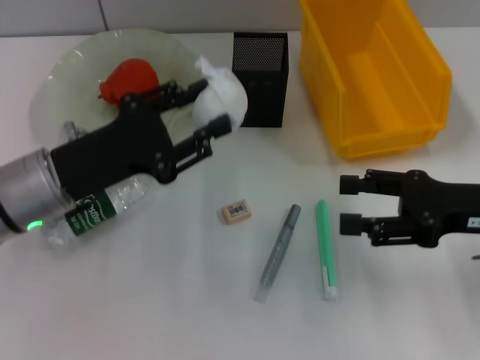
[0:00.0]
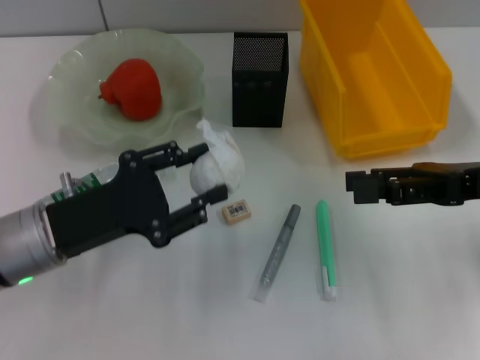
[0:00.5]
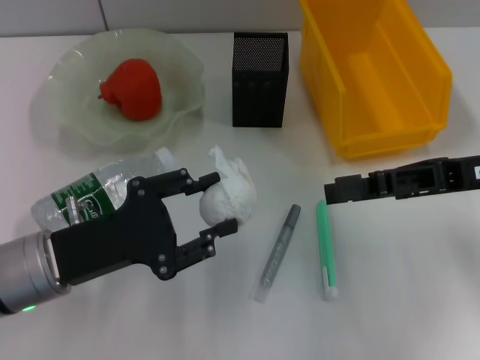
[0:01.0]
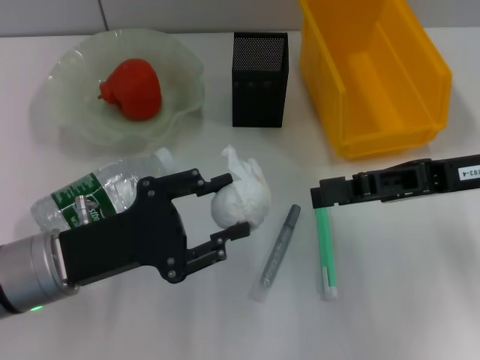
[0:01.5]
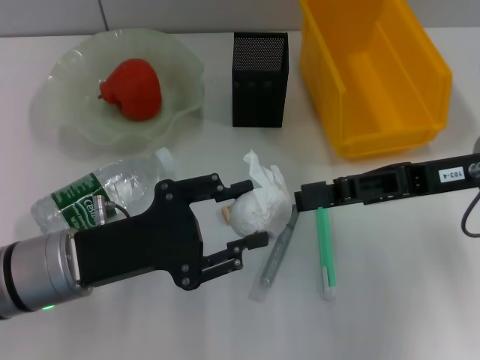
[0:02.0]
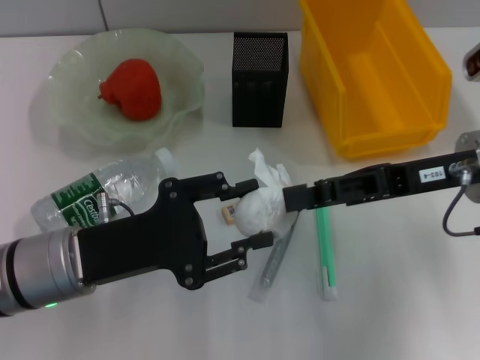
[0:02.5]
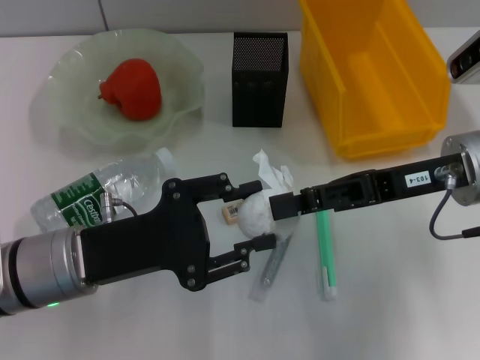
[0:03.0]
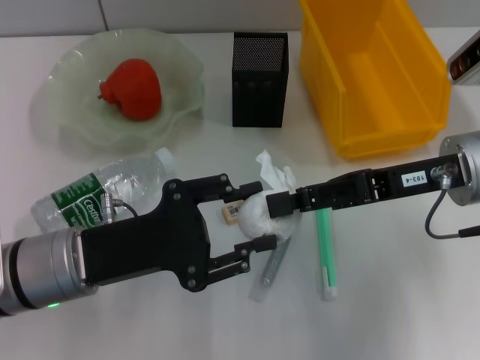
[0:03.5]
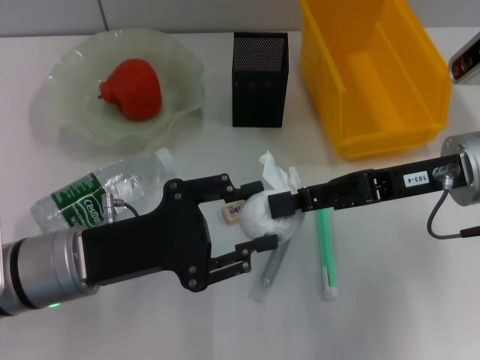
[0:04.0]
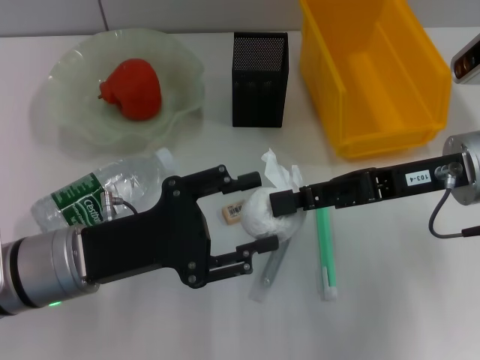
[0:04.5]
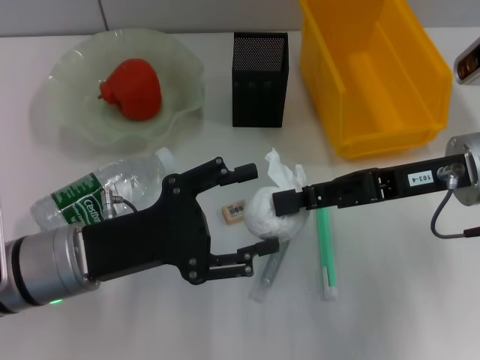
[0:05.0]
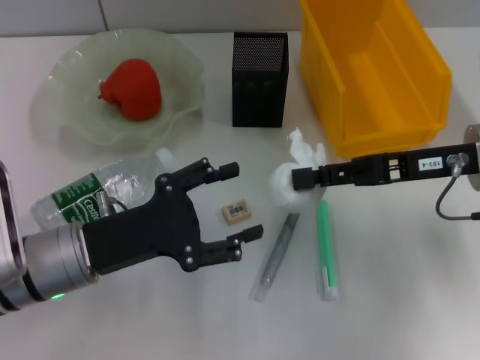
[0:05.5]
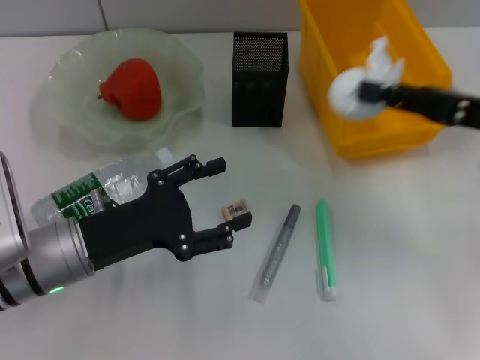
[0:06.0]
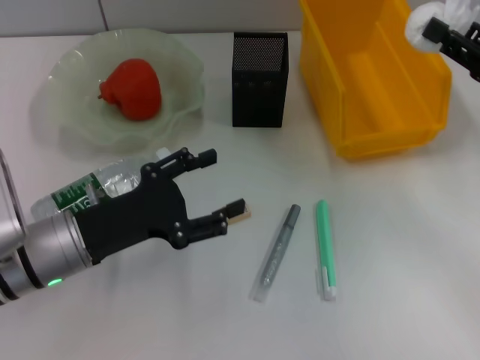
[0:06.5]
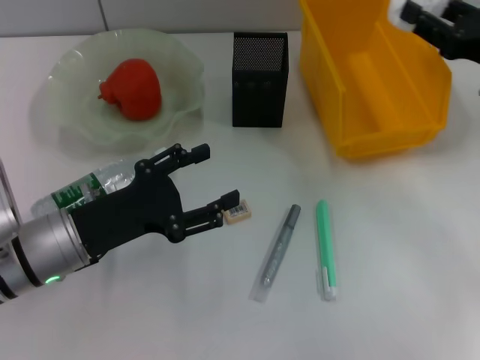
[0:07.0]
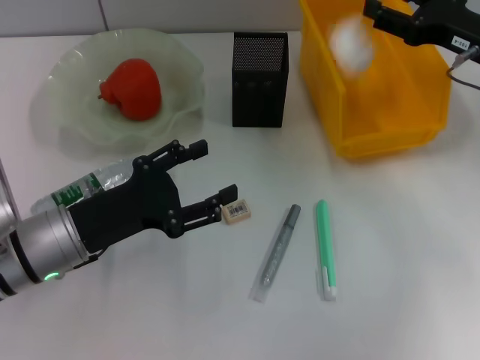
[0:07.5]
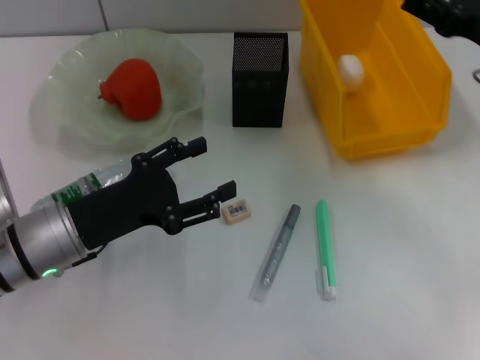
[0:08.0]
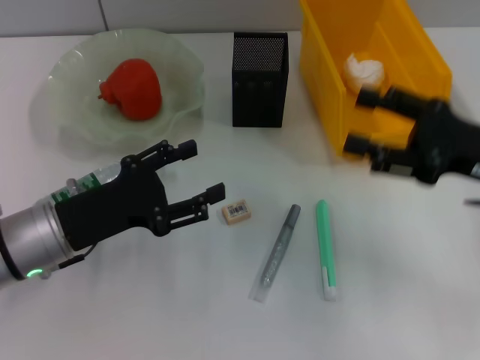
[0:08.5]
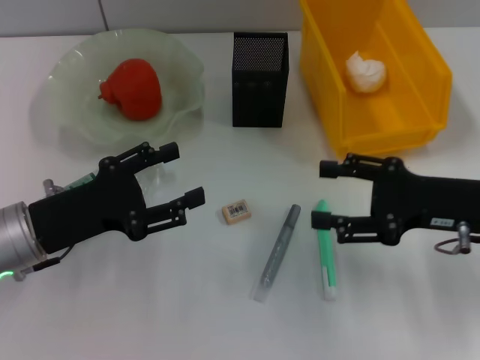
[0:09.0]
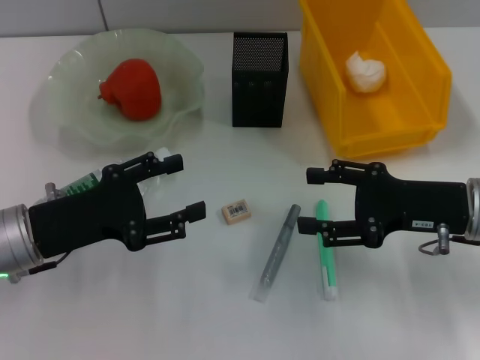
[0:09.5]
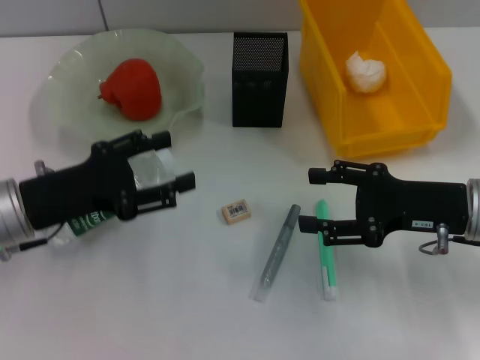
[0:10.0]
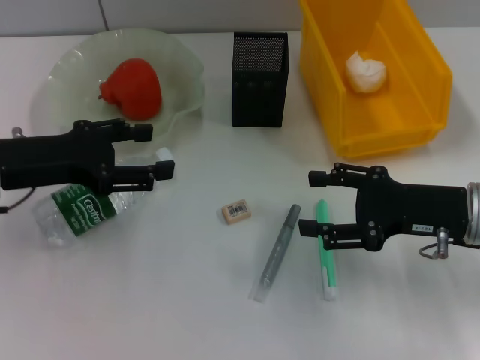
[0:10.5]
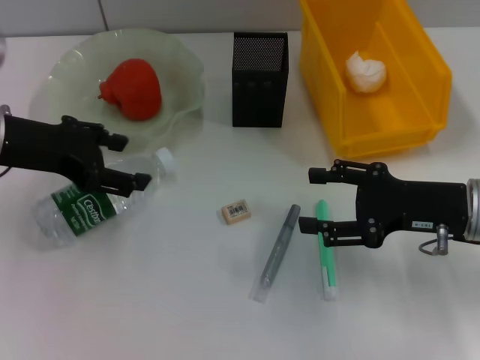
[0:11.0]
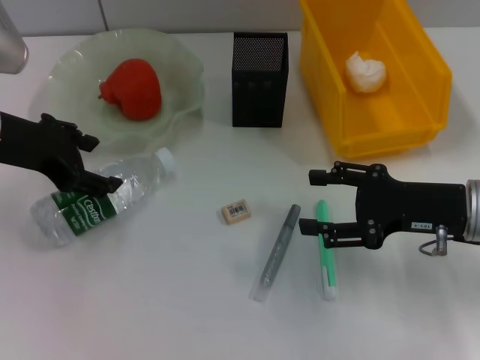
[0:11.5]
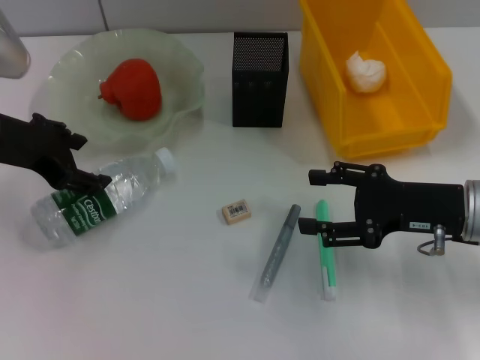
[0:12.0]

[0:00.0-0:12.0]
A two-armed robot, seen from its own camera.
Step, 0:00.0 to 0:04.5: Pass the paper ball from the left hand to the right hand.
Step, 0:05.0 to 0:08.5: Place the paper ball into the trash can with the right hand.
0:00.0 to 0:02.0: The left gripper moves backward, about 5 cm. The right gripper shifts by roughly 5 cm.
0:02.0 to 0:04.0: The right gripper closes.
0:04.0 to 0:06.0: The right gripper heads to the right, covering about 10 cm; the left gripper opens.
0:06.0 to 0:08.0: The right gripper opens up.
0:08.0 to 0:10.0: The right gripper is displaced backward and downward by about 10 cm.
0:10.0 to 0:12.0: The left gripper travels upward and forward by some 10 cm.

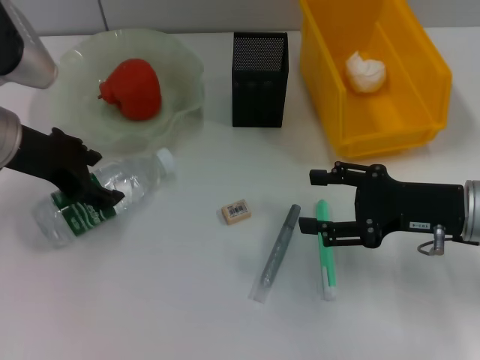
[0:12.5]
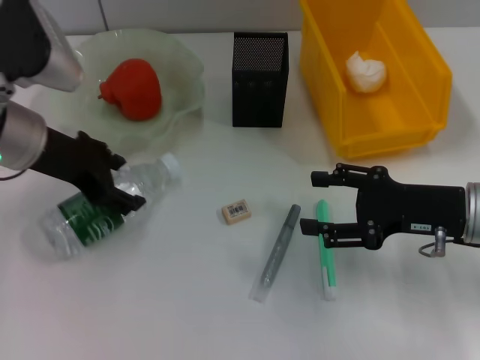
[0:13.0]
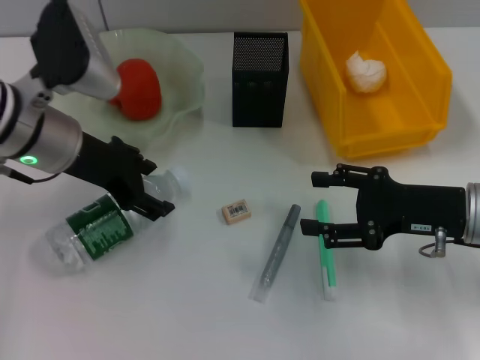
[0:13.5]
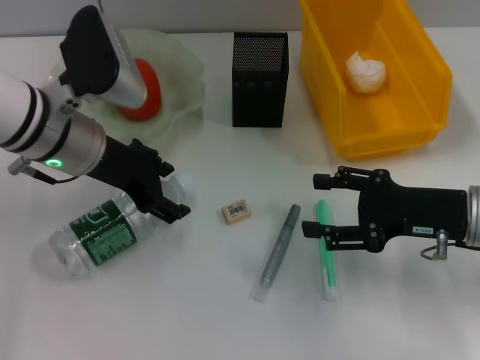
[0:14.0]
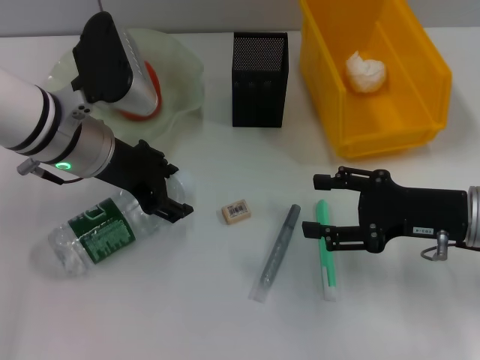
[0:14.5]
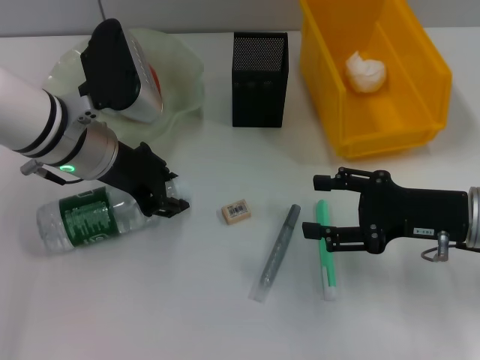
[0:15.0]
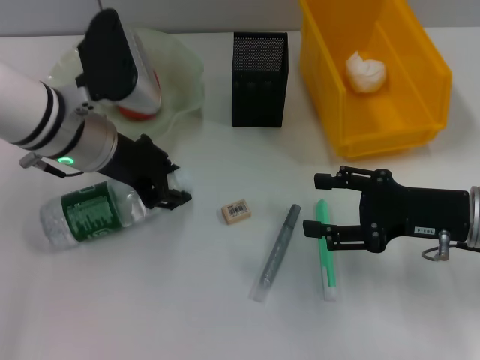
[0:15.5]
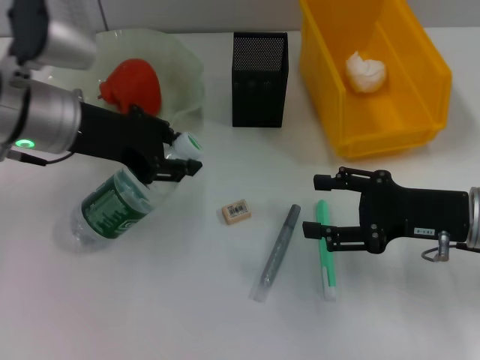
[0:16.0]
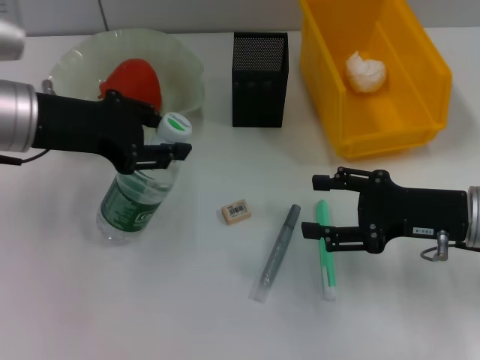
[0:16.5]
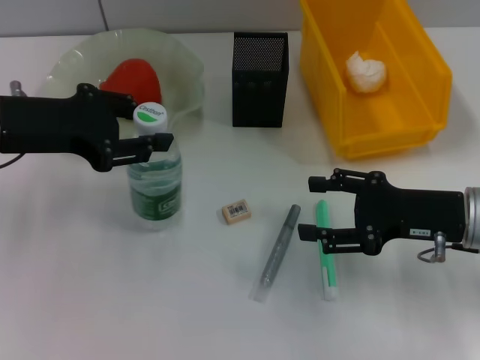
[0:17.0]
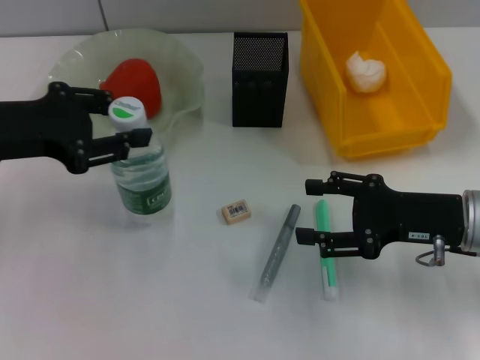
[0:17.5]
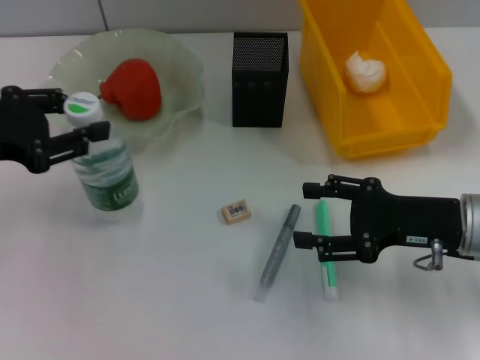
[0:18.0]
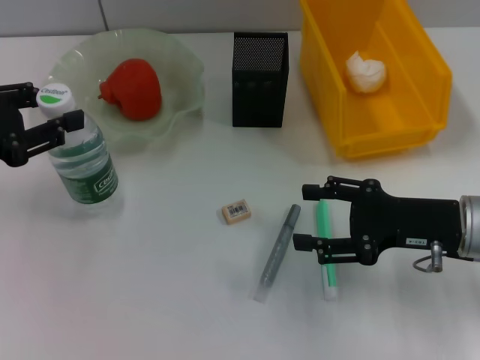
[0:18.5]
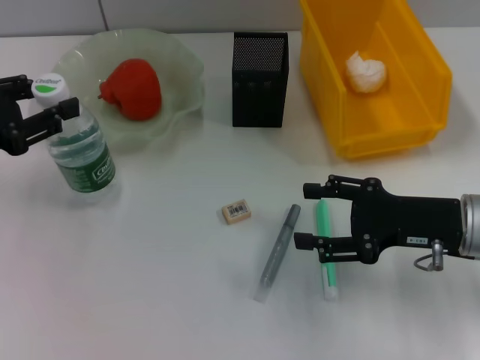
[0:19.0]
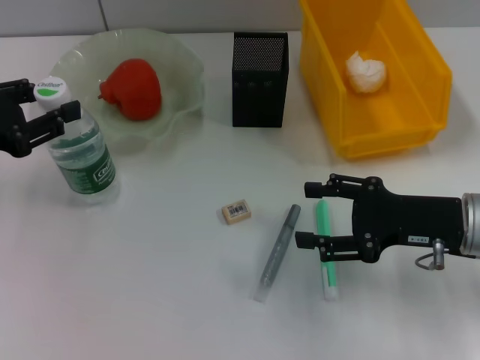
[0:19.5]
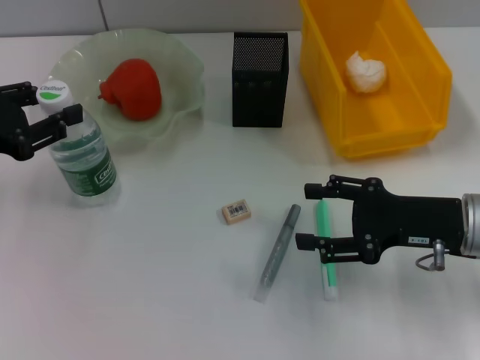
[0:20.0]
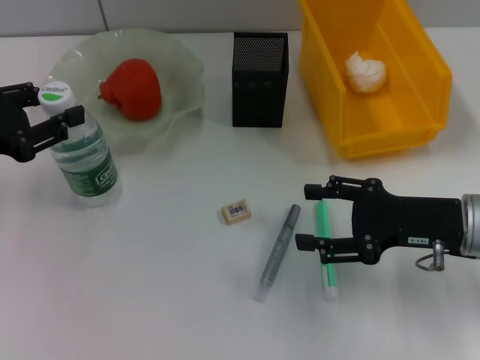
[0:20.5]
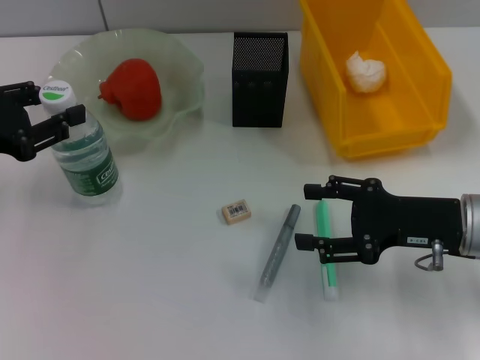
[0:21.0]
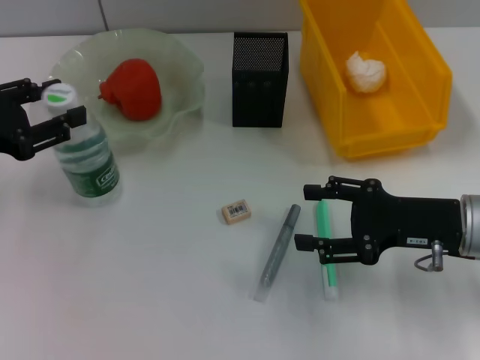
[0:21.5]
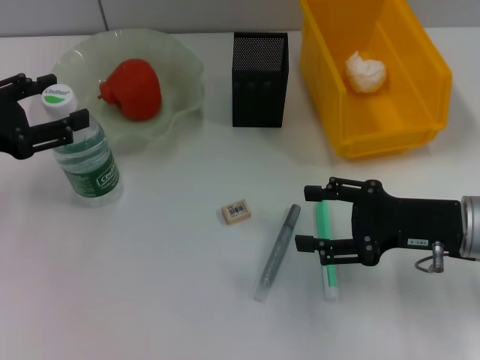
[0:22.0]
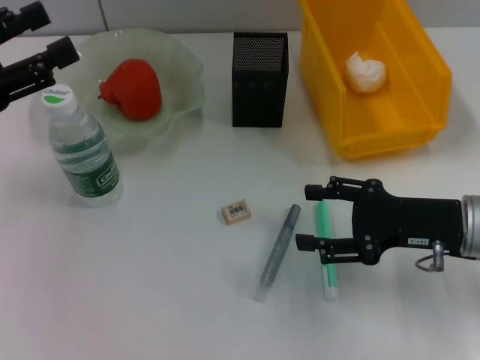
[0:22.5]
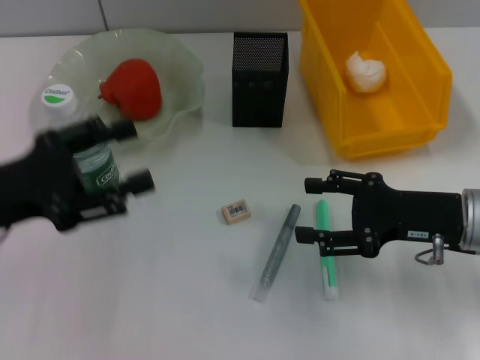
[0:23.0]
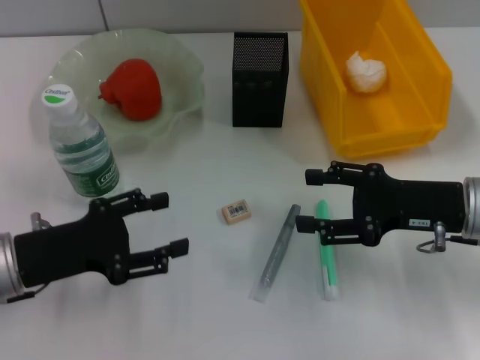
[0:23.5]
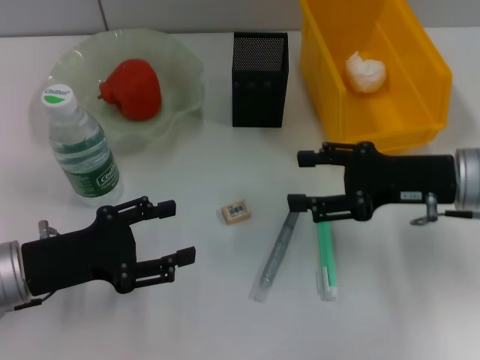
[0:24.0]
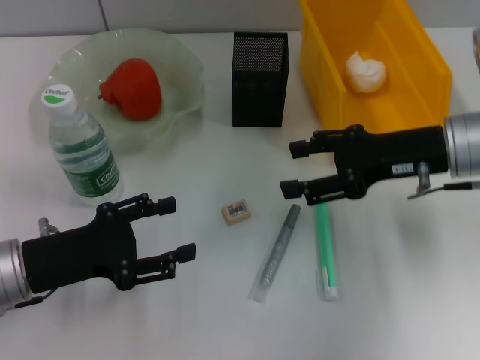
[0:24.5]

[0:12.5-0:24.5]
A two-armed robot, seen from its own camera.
Step, 0:12.5 to 0:15.0: Grab the water bottle with the left hand.
Step, 0:15.5 to 0:21.5: Place the water bottle on the table with the left hand.
0:12.5 to 0:14.5: The left gripper shifts roughly 5 cm to the right.
0:14.5 to 0:16.5: The left gripper moves to the left, approximately 5 cm, and closes its fingers.
0:16.5 to 0:18.5: The left gripper moves to the left, roughly 10 cm.
0:18.5 to 0:20.5: The grippers make only small movements.
0:20.5 to 0:22.5: The left gripper opens its fingers.
0:22.5 to 0:24.5: The left gripper moves downward and to the right, some 15 cm. The right gripper moves forward and upward, some 10 cm.

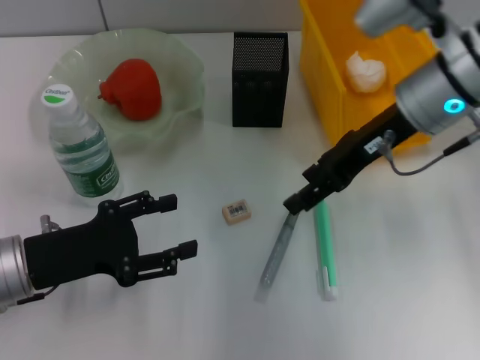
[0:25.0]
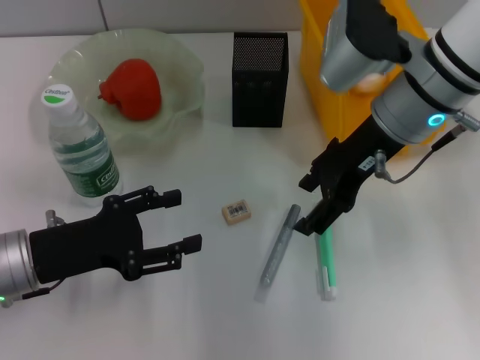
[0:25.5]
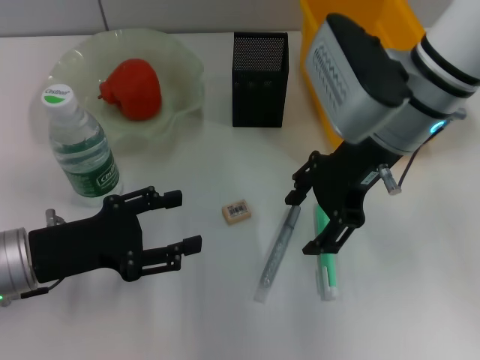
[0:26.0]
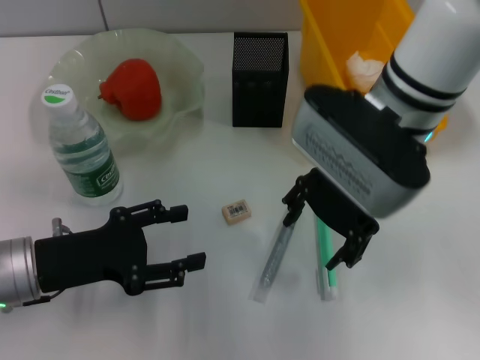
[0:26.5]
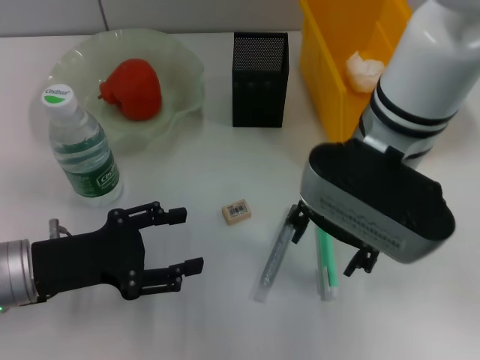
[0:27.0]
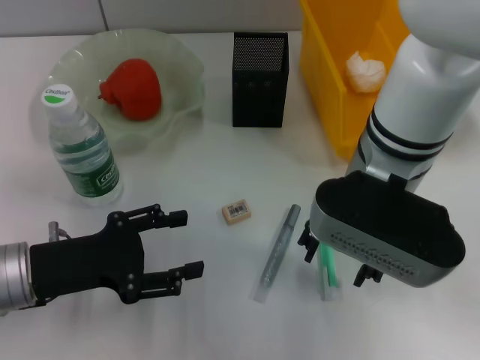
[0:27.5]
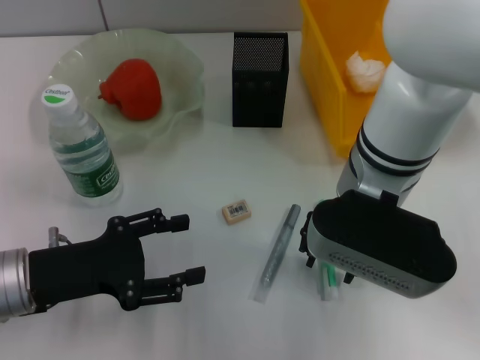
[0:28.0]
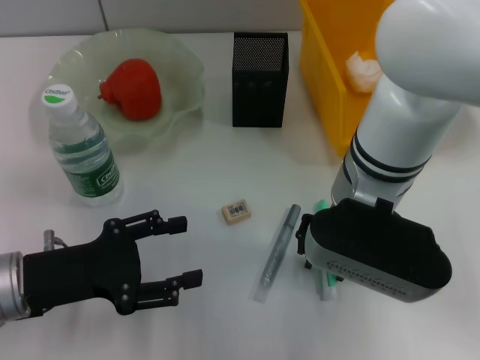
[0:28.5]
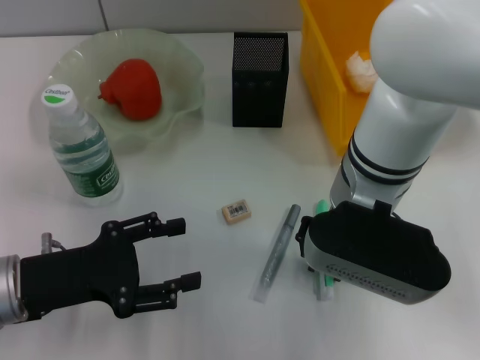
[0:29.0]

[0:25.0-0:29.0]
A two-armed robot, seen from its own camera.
0:25.0 to 0:27.0: The right gripper travels to the left by some 5 cm.
0:27.0 to 0:29.0: The right gripper closes its fingers.
